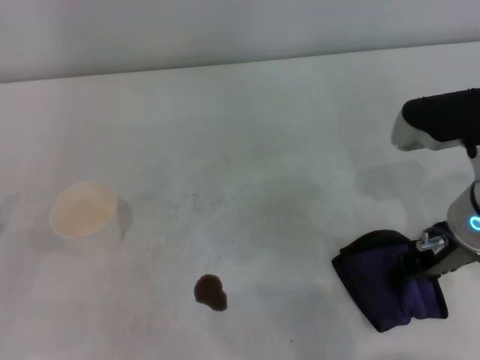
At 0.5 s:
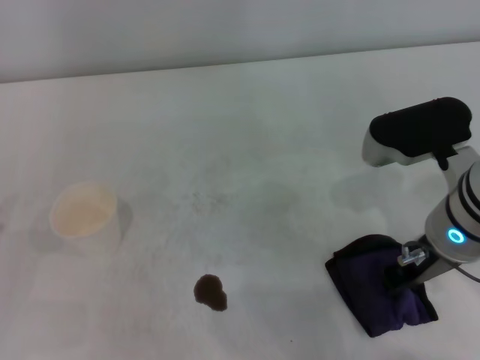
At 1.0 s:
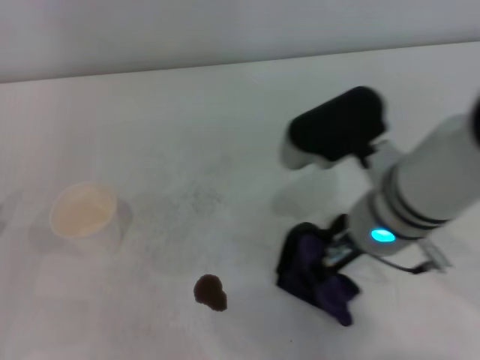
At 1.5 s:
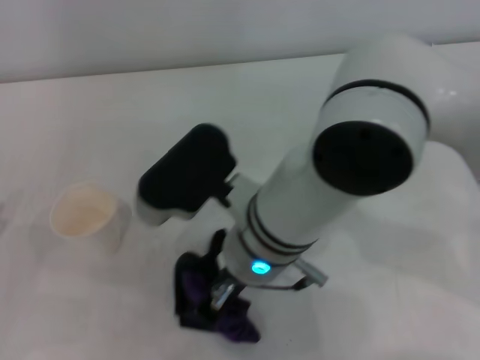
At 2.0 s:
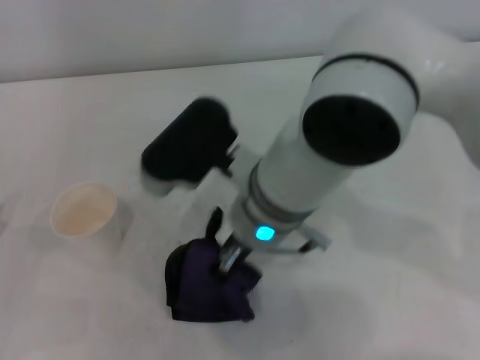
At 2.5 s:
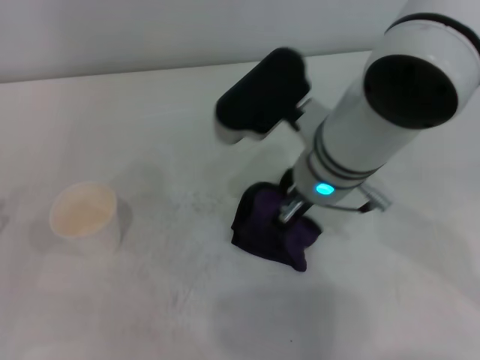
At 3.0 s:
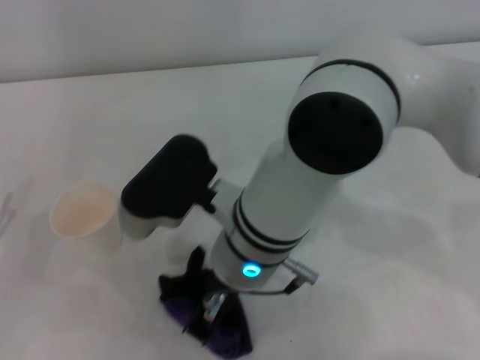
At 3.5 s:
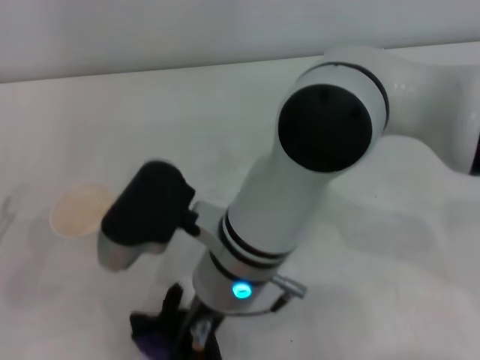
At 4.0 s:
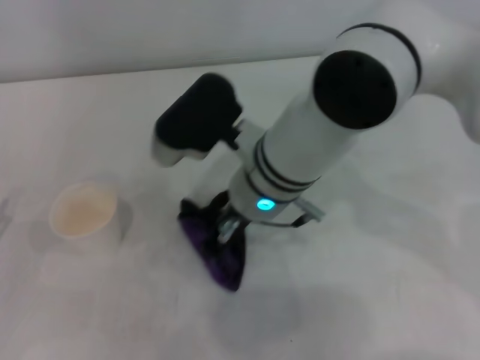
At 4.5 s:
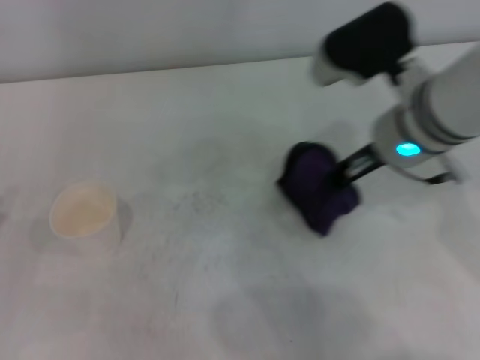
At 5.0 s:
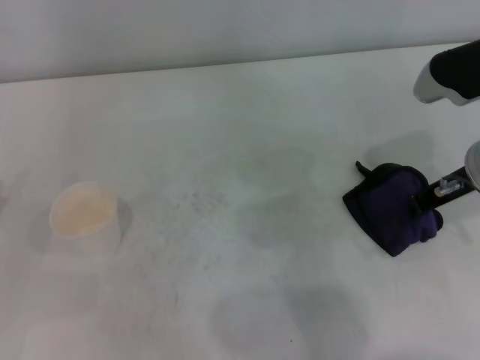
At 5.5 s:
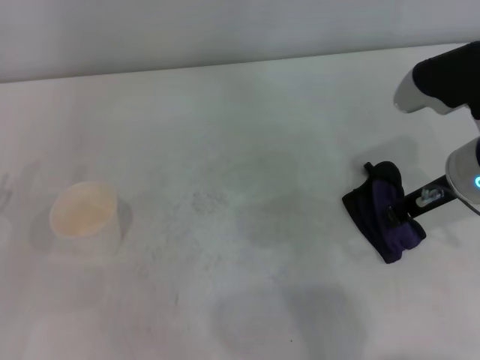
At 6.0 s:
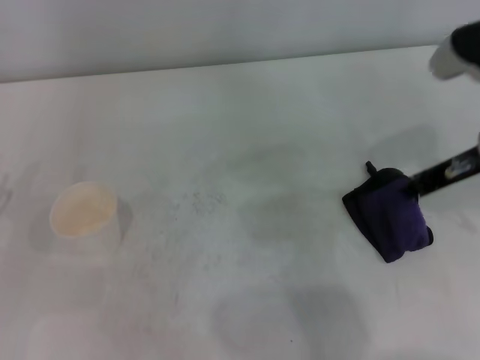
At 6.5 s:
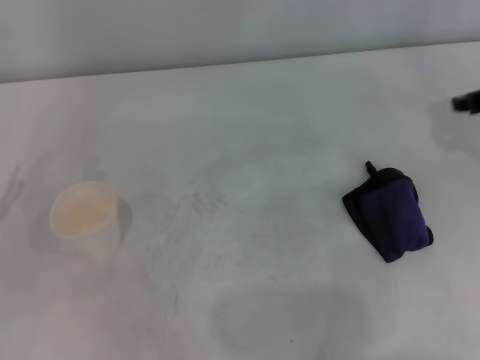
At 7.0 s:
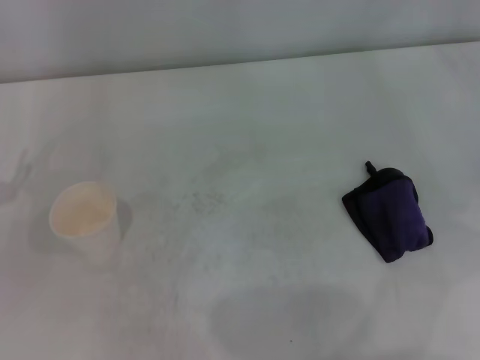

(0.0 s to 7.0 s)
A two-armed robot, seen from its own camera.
Step, 0.5 s - 5.0 s: Wipe the stains off the table with the right gripper.
0.0 s - 2.0 s: The right gripper heads to the left, covering about 20 cm, and closes up.
2.0 s - 3.5 s: The right gripper moves approximately 5 cm to the right and comes back.
3.5 s - 5.0 s: The right gripper goes approximately 25 cm to the right.
5.0 s - 7.0 s: The right gripper travels to the right by approximately 15 cm.

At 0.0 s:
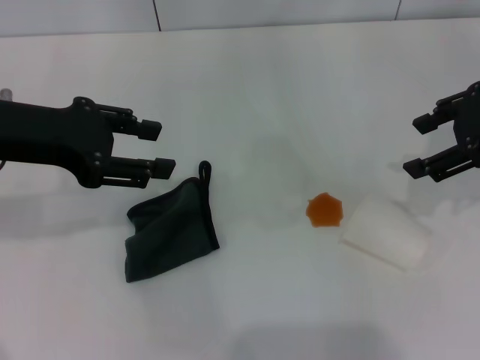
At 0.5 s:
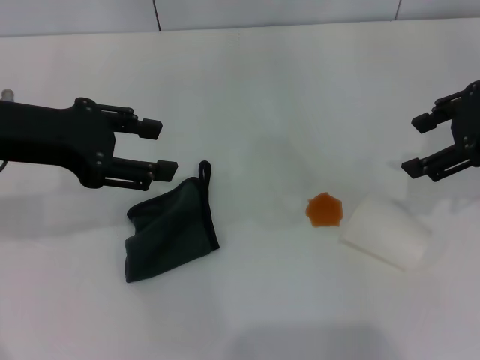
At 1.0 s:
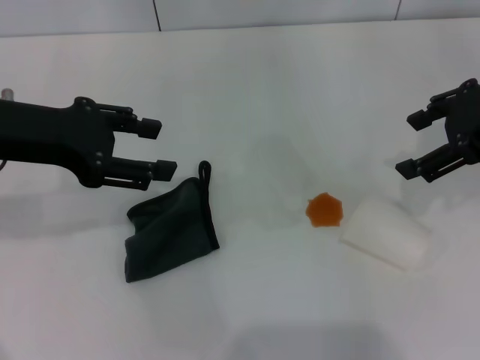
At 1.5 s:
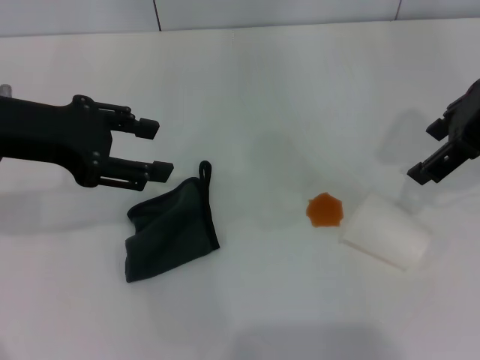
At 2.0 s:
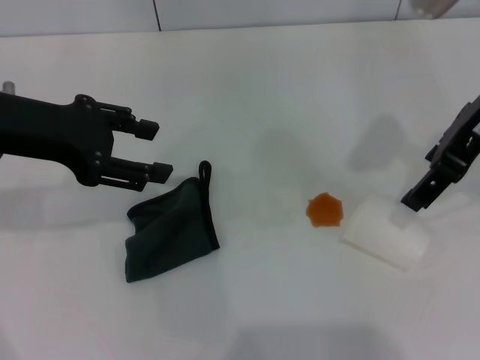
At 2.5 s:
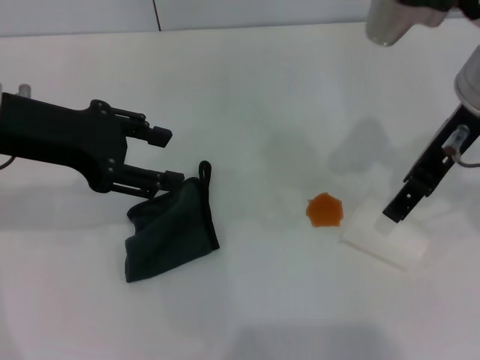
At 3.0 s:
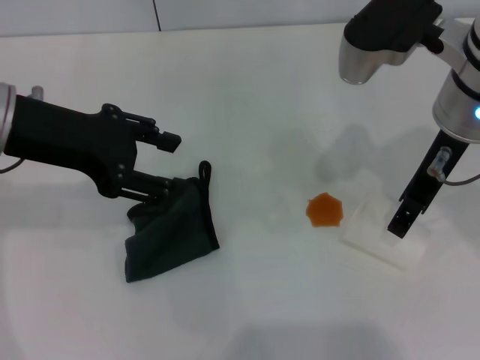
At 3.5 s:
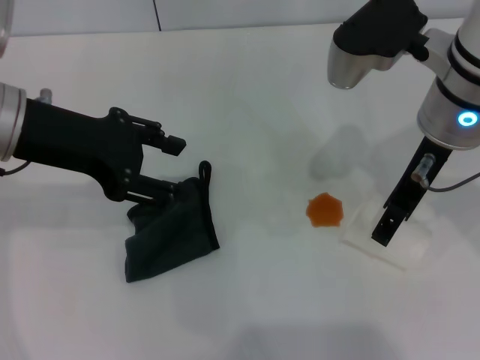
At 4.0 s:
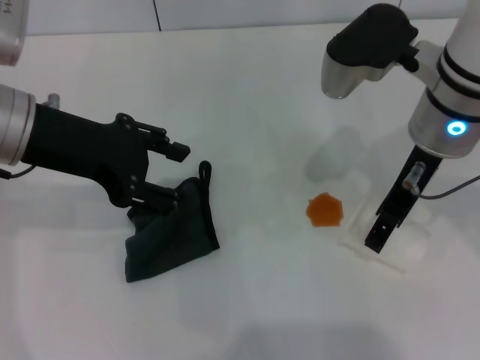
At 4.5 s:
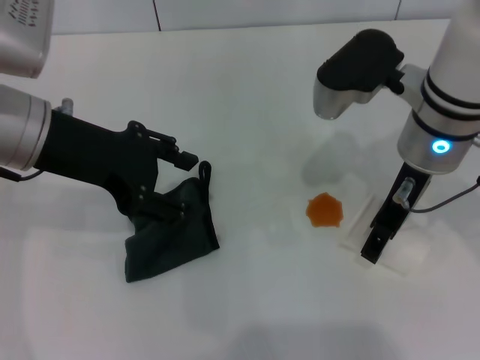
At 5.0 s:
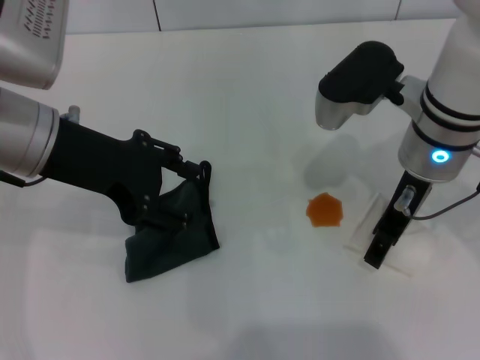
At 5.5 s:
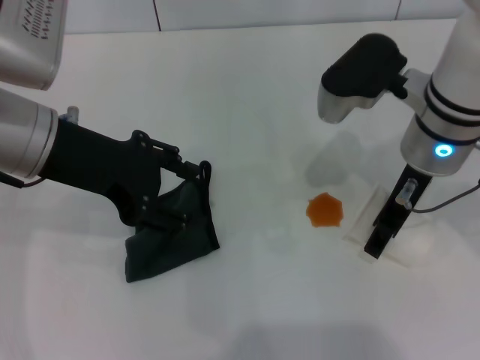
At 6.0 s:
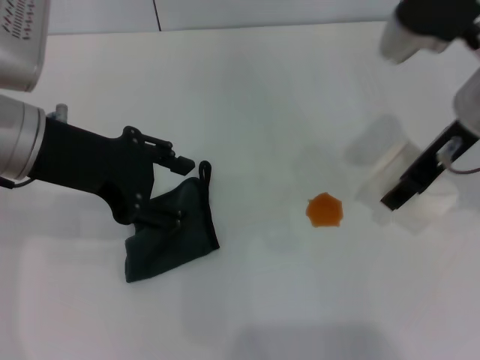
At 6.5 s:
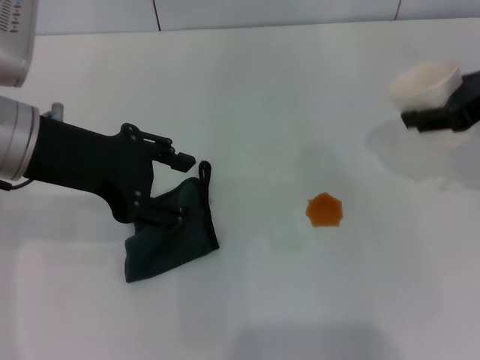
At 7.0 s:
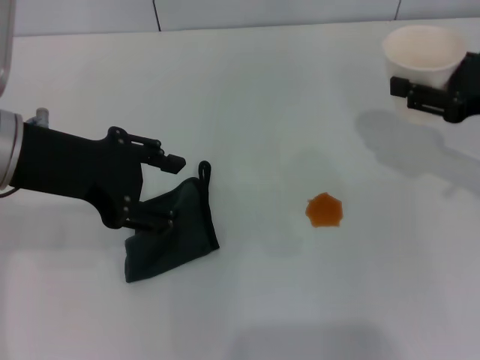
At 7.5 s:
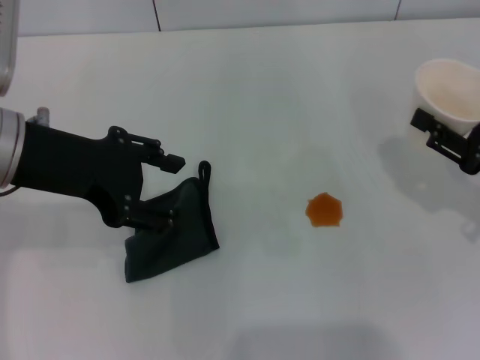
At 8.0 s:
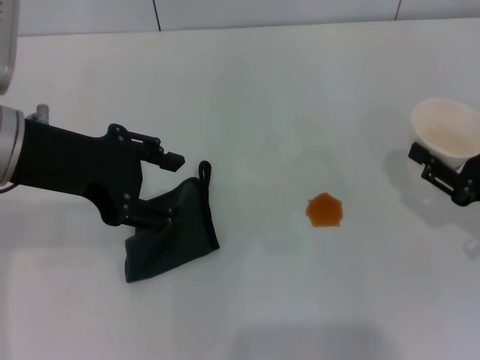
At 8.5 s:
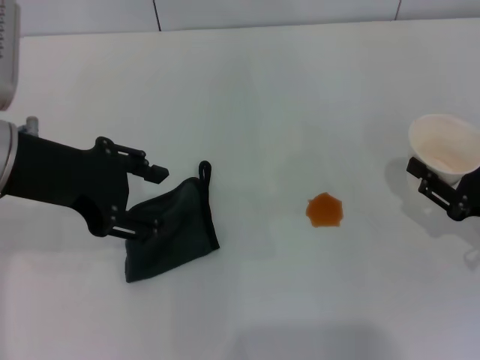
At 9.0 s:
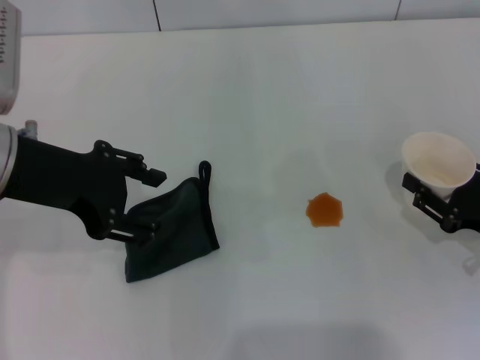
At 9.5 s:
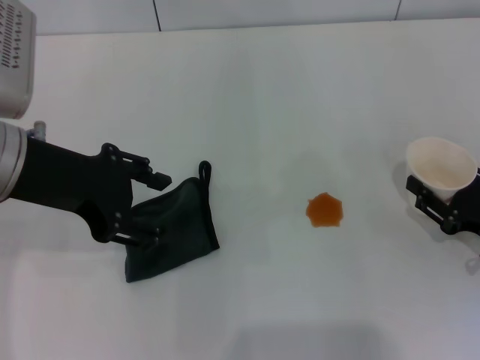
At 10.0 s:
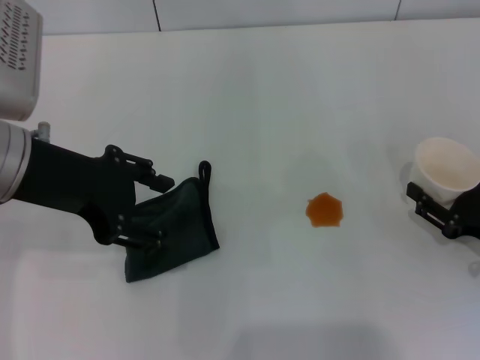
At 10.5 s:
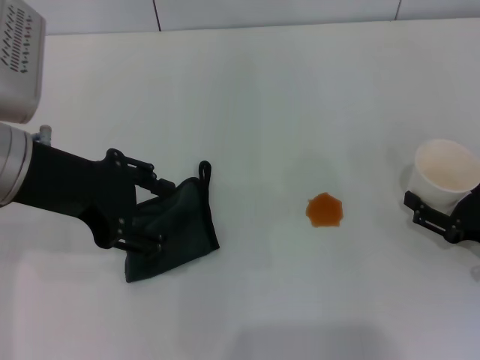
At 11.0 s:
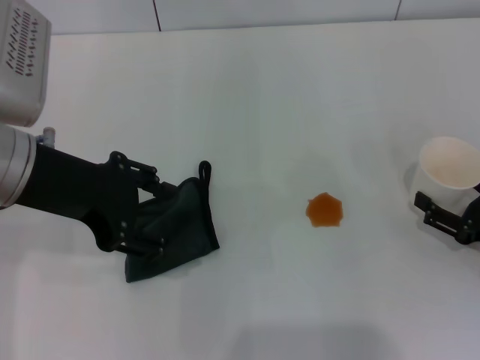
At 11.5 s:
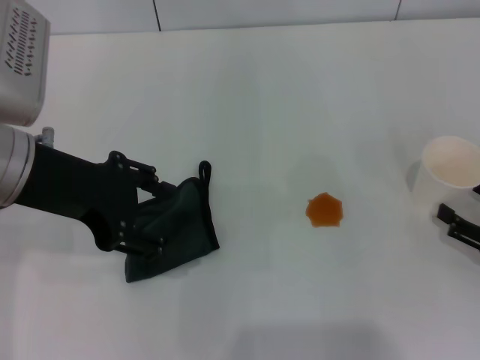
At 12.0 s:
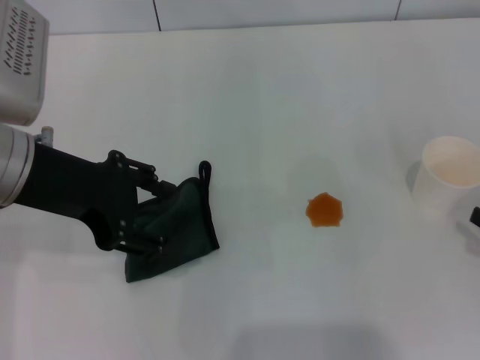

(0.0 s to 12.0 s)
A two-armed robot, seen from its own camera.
Step, 0.0 s - 5.0 s: Grasp the paper cup with the right gripper.
Step, 5.5 s - 11.5 s: Stand the paper cup upright with the right gripper.
0.0 s - 2.0 s: The right gripper goes some 10 cm to the left.
2.0 s - 4.0 s: The right gripper shifts roughly 10 cm downward and to the left.
4.0 s - 6.0 s: The right gripper goes roughly 5 cm to the right, and closes.
6.0 s - 8.0 s: The right gripper heads downward, to the right and backward, covering about 20 cm, and closes.
8.0 s - 10.0 s: There are only small adjustments of the grippers.
10.0 s - 12.0 s: The right gripper is displaced to the right by approximately 5 cm, and opens.

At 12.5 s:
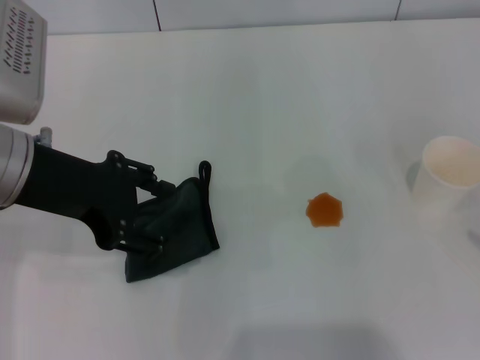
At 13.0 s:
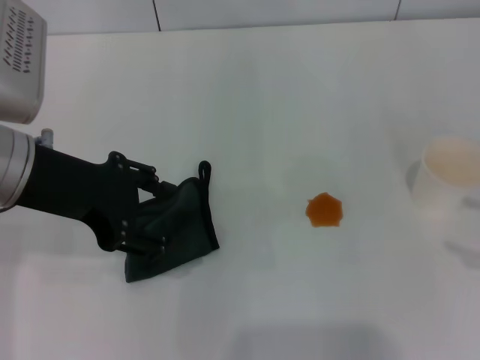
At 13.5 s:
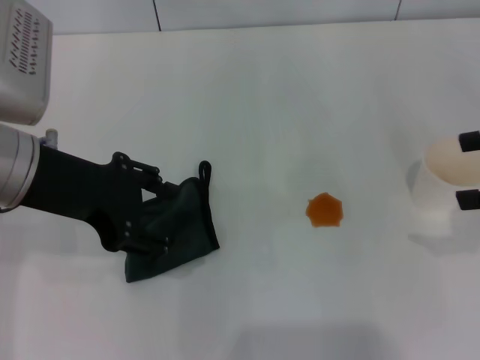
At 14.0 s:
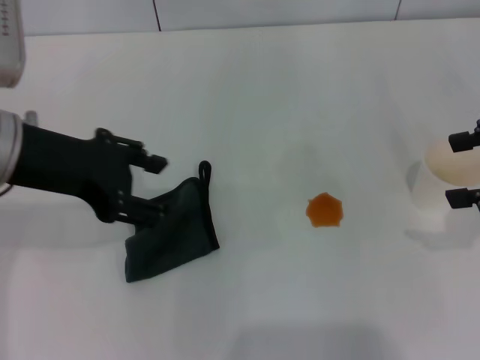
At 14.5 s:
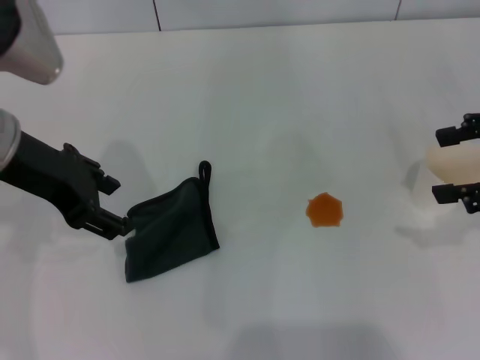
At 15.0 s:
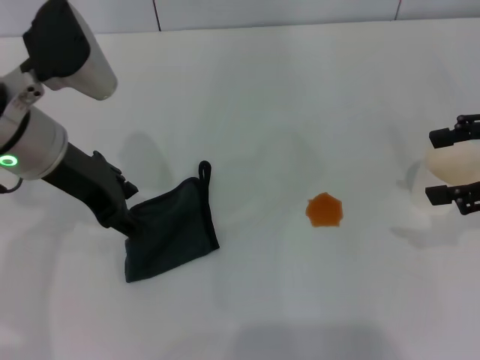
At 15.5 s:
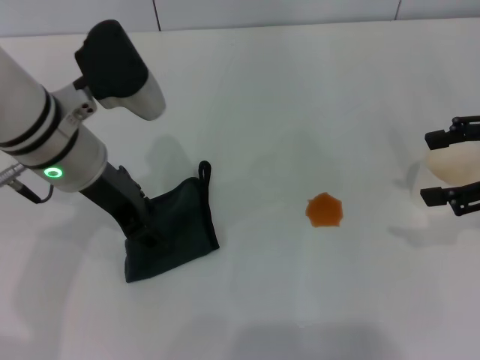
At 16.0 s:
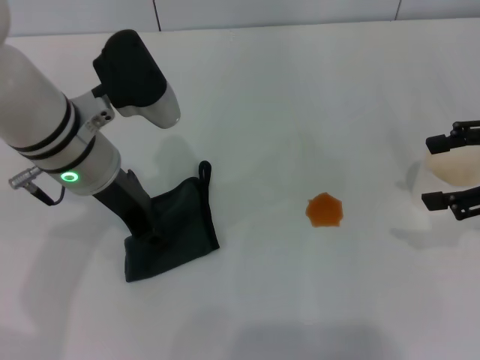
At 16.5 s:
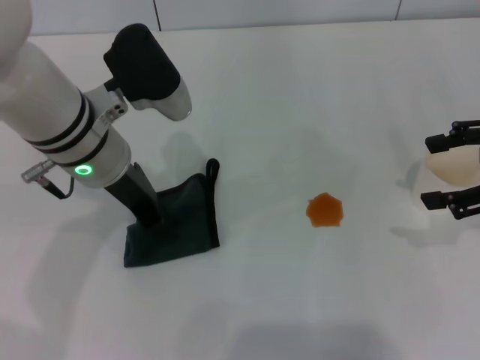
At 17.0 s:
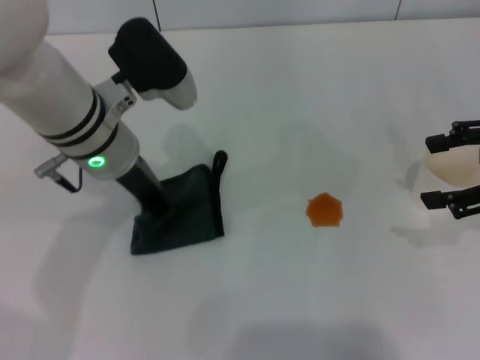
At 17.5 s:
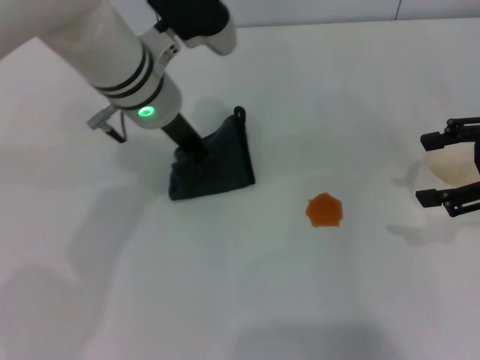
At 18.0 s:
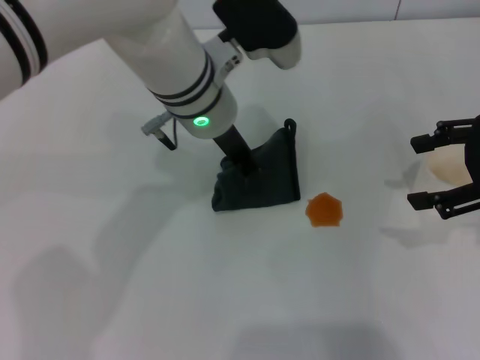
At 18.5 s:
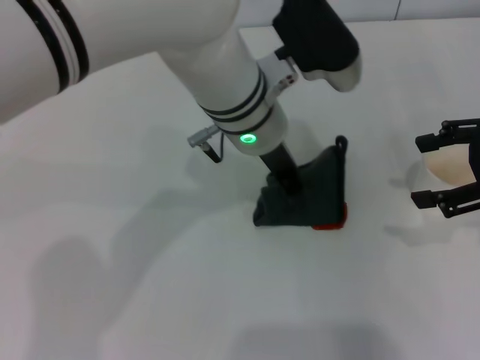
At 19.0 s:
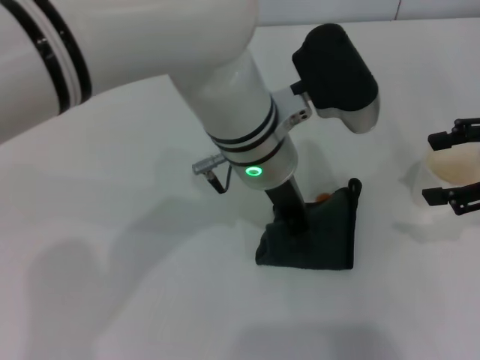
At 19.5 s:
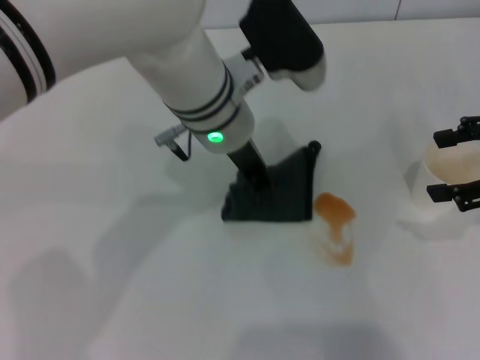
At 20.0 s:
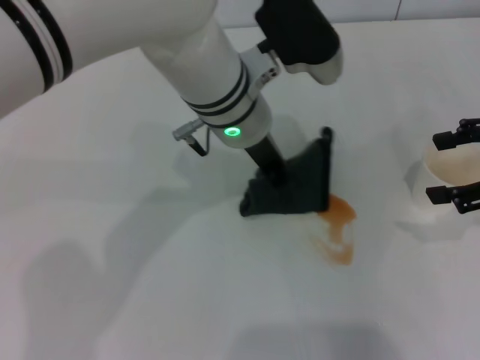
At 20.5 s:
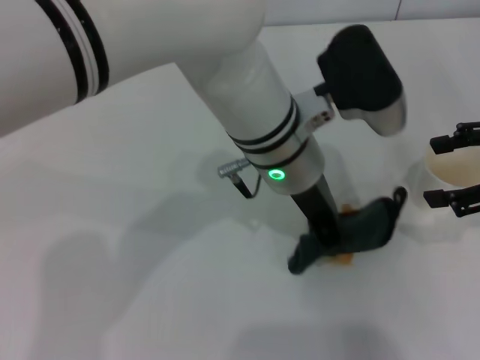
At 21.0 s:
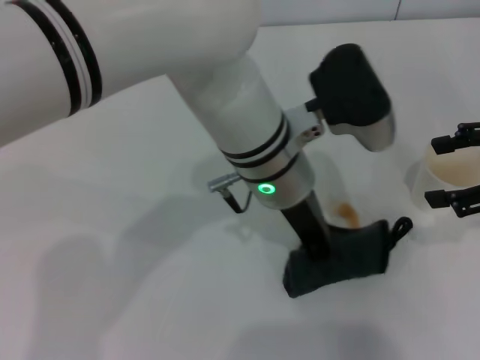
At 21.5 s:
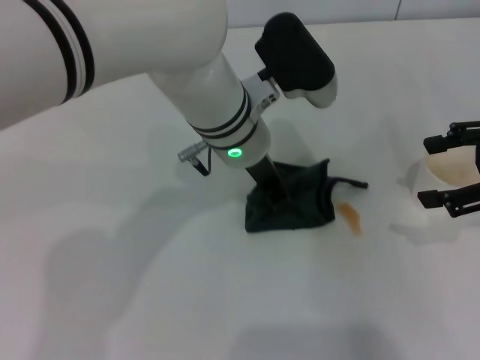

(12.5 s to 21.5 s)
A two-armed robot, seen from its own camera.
Step, 12.5 s - 16.5 s: Grasp the rag with the left gripper.
12.5 s - 14.5 s: The right gripper moves upward, forward and to the left, some 15 cm.
14.5 s - 17.0 s: The left gripper goes about 10 cm to the right and downward, and closes.
17.0 s - 19.5 s: The left gripper moves to the right, approximately 10 cm.
